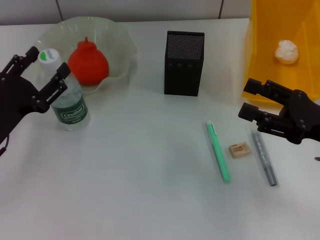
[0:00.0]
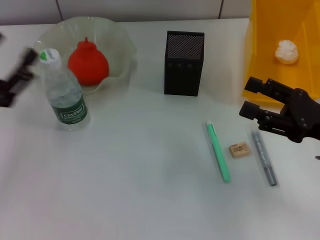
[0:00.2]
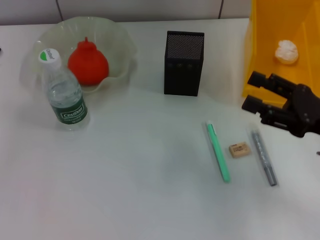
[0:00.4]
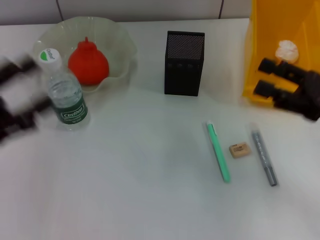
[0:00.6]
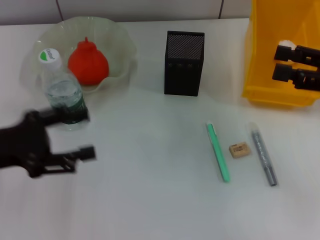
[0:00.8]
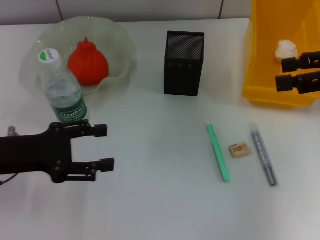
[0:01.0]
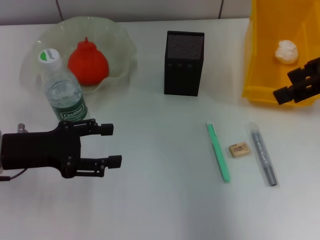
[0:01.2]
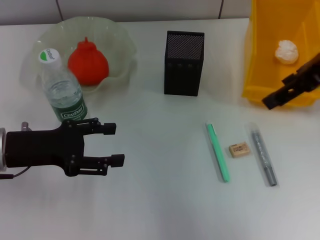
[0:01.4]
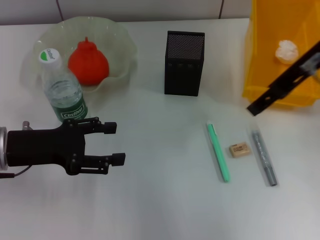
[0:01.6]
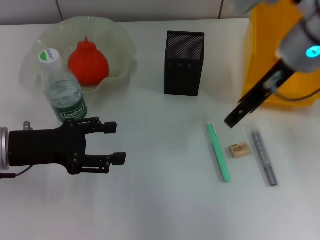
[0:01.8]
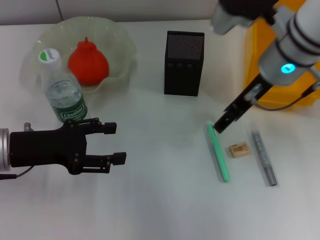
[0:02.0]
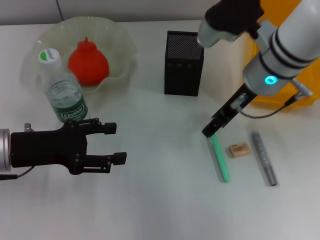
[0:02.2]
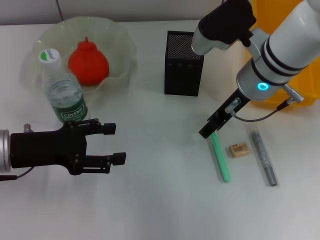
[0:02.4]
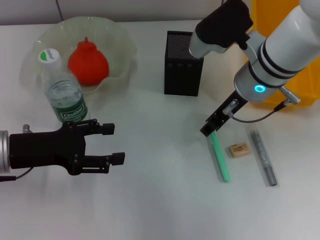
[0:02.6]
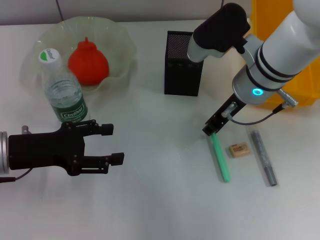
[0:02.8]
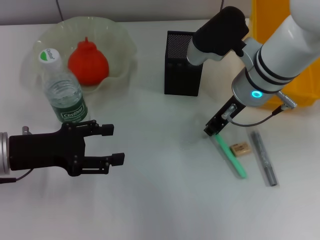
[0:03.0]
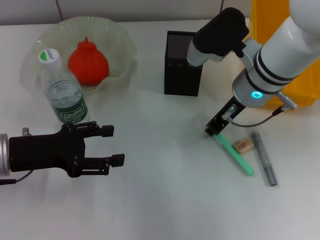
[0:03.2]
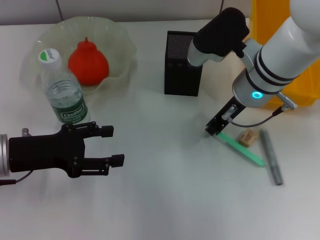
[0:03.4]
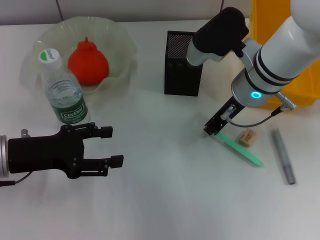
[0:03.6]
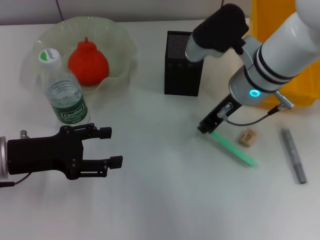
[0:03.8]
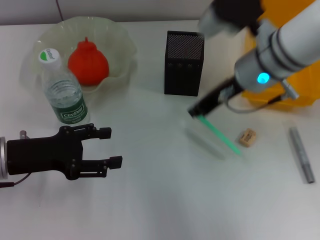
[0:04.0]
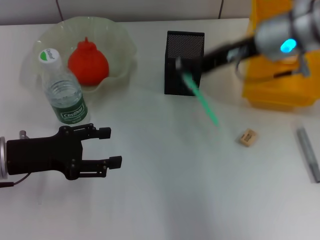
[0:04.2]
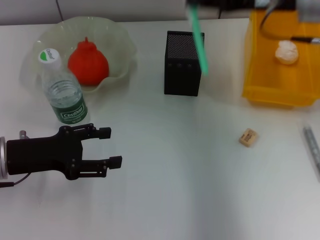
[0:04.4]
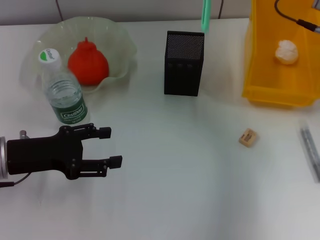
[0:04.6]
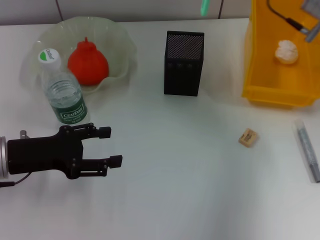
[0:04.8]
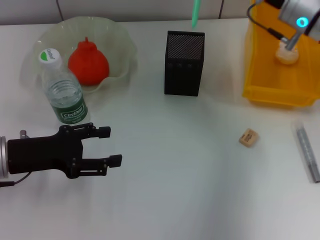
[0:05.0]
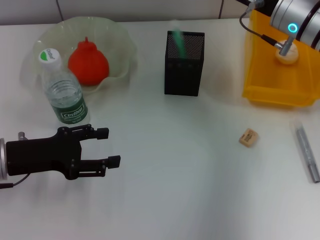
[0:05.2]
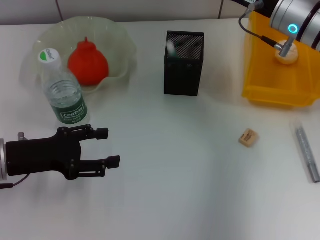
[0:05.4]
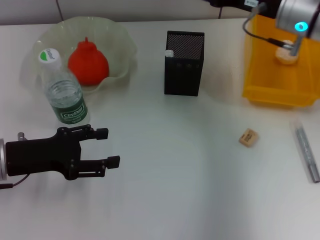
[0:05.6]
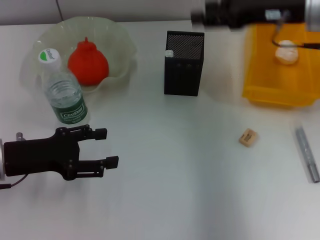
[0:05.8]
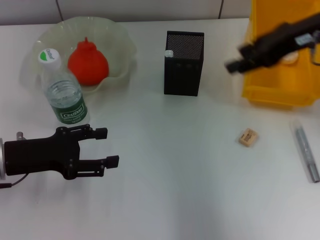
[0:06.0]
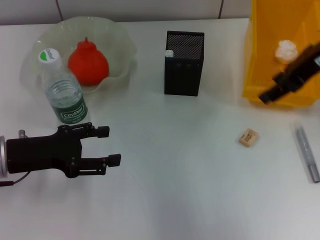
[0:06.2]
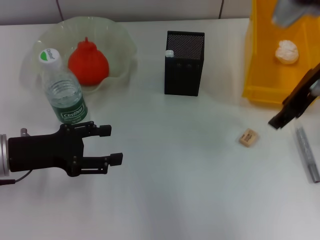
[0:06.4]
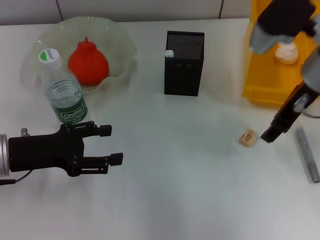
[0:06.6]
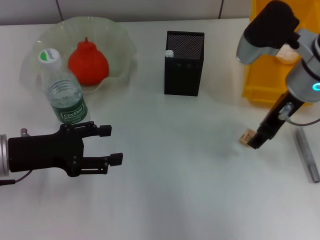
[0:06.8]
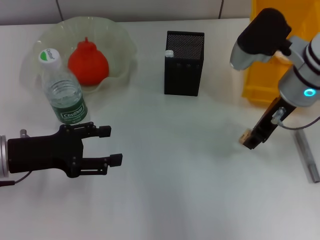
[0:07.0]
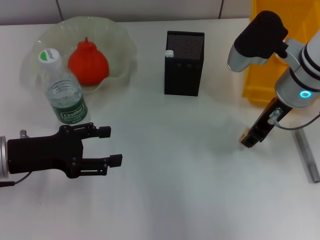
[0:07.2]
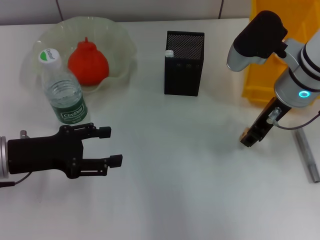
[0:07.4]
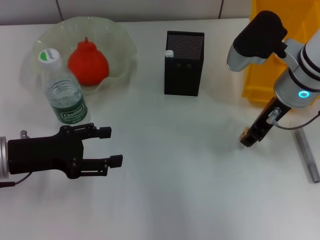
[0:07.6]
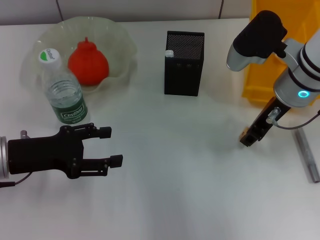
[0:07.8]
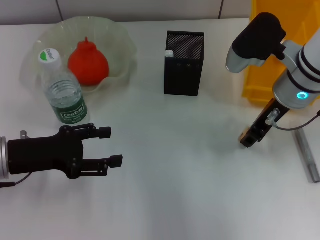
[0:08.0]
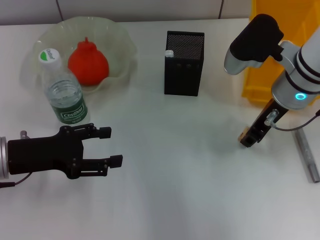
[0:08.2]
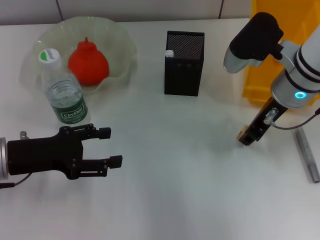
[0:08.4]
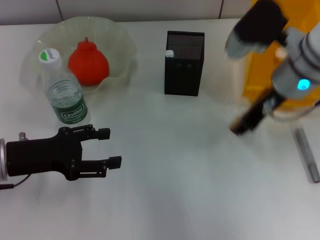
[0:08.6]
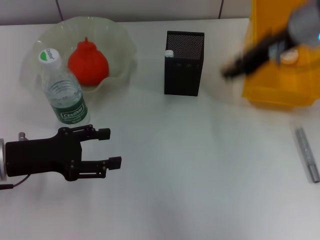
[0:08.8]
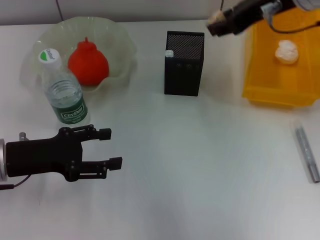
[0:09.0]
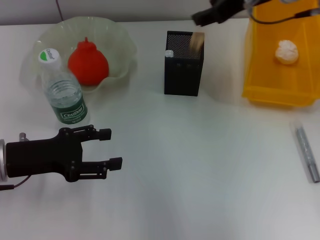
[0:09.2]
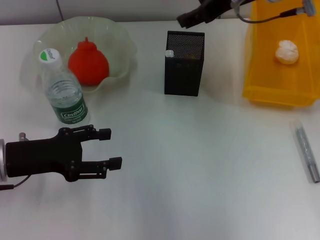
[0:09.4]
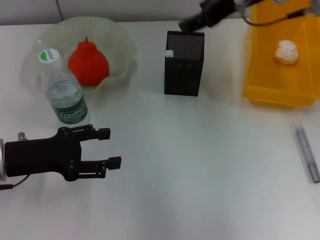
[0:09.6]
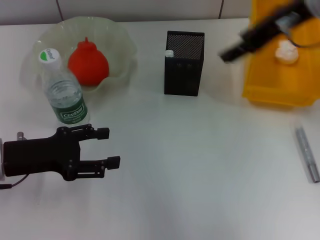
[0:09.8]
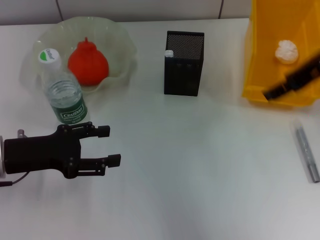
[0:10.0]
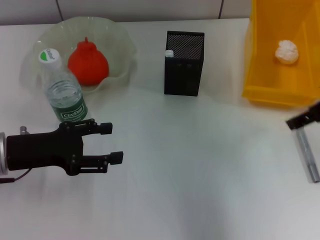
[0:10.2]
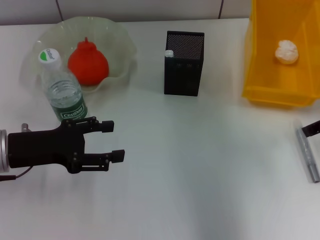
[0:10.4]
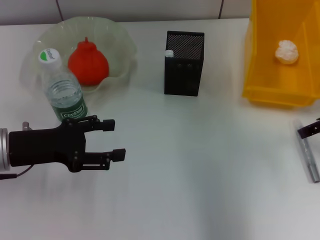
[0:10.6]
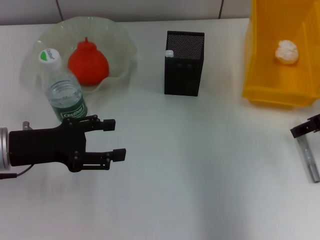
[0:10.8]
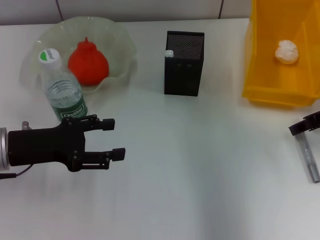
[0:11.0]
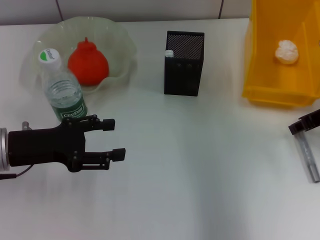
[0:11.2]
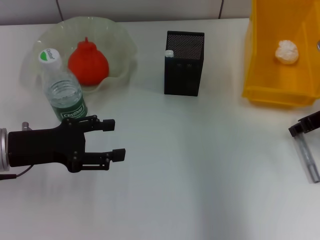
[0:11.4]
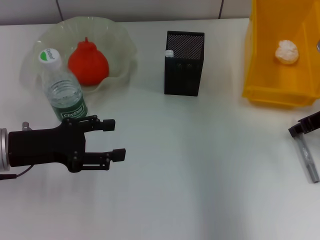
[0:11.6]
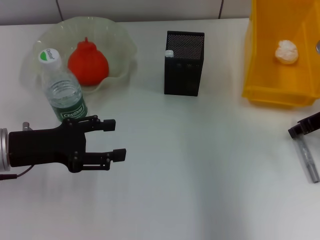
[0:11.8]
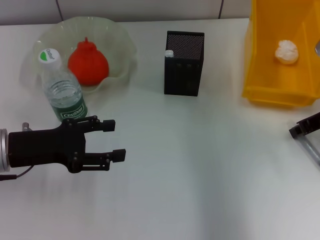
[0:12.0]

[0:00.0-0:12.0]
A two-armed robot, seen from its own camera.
Step, 0:00.0 to 0:03.4: Grab the blue utility knife with the right hand.
Step, 0:03.6 to 0:05.4: Place the blue utility knife into the pen holder with the right hand.
Step, 0:05.8 to 0:08.0: Grab the eraser with the right hand.
Step, 0:08.2 to 0:09.2: Put the eraser into the pen holder with the right hand.
0:00.0 to 0:01.6: The right gripper is displaced upward, forward and to the left by approximately 20 cm. Meanwhile the left gripper opens.
0:01.6 to 0:03.0: The right gripper is displaced downward and to the left by roughly 15 cm, and closes.
0:03.0 to 0:04.4: The right gripper heads upward and to the right, covering roughly 10 cm.
0:04.4 to 0:06.0: The right gripper reaches some 5 cm downward, then returns, and opens.
0:06.0 to 0:07.6: The right gripper is displaced downward and to the left by roughly 10 cm.
0:07.6 to 0:09.0: The right gripper heads upward, covering some 10 cm.
0:09.0 to 0:10.4: The right gripper goes some 15 cm to the right, downward and backward, and opens its fingers.
0:10.4 to 0:12.0: The right gripper is displaced downward by approximately 5 cm, and closes its fingers.

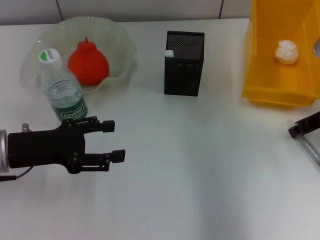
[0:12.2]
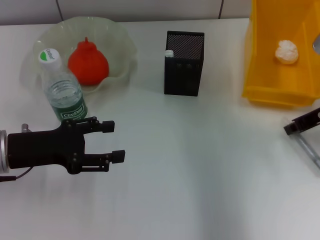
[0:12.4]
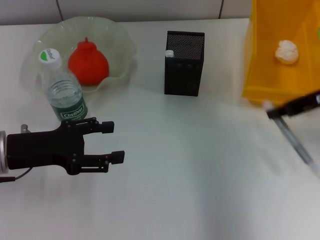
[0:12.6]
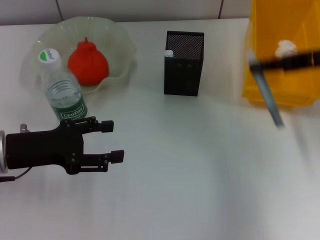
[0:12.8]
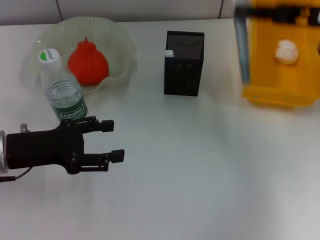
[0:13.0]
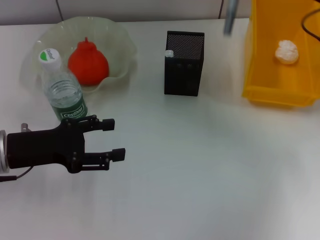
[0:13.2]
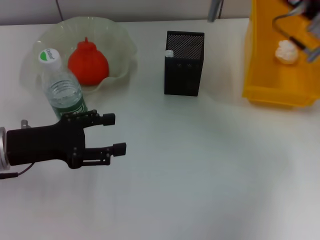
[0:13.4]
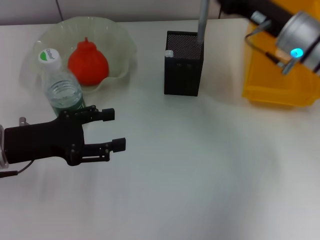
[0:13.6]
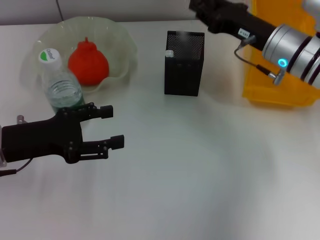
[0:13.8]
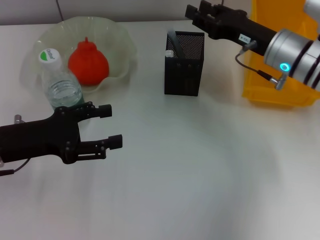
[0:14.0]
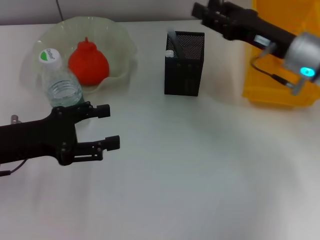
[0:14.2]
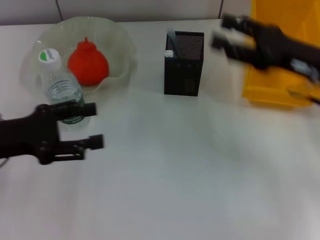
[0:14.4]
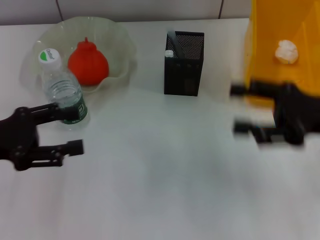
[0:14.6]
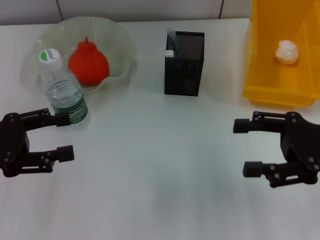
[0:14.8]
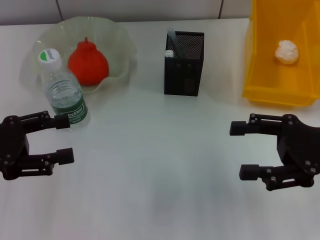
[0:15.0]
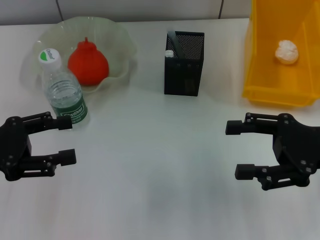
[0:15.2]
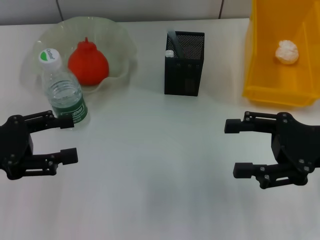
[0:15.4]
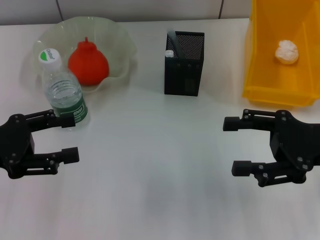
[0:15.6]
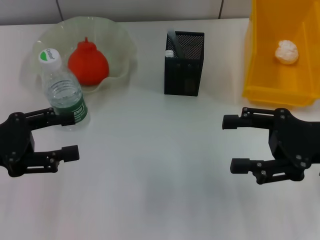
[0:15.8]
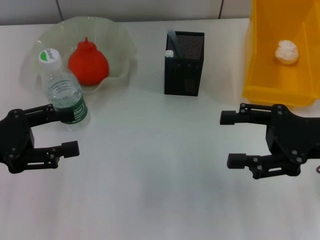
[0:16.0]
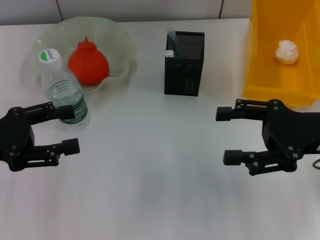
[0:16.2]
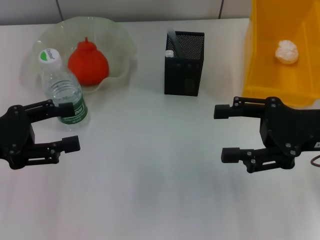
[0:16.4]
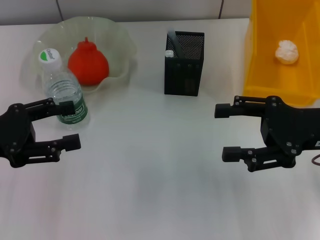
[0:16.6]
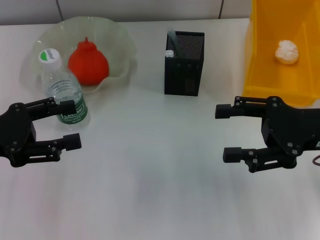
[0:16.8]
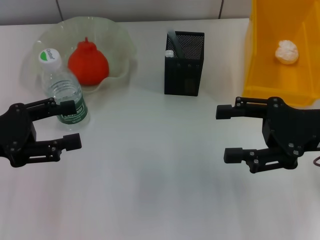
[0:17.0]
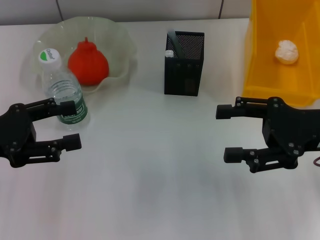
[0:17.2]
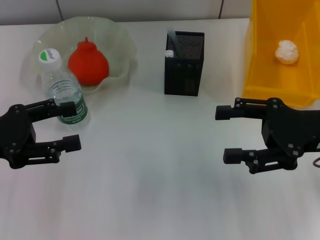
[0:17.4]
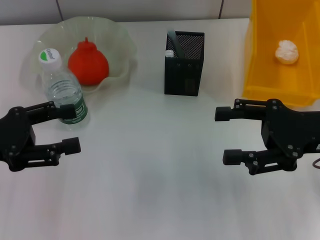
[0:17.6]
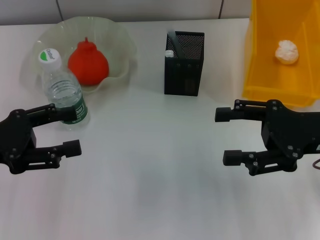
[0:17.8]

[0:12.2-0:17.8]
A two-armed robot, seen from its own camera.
Step, 0:12.2 to 0:14.2: Place the gray glue into the pen holder with the right hand.
0:12.2 to 0:13.6: The right gripper goes about 10 cm to the left, and goes upward and returns, some 10 cm each way.
0:13.6 to 0:15.0: The left gripper travels to the left by about 5 cm. The right gripper shifts approximately 15 cm backward and to the right, and opens.
0:15.0 to 0:16.4: There are only small adjustments of the grippers.
0:16.4 to 0:17.8: Neither gripper changes place.

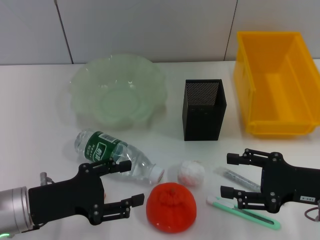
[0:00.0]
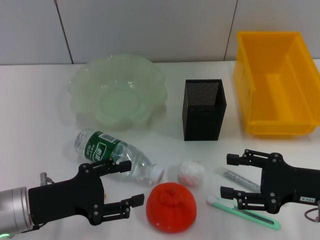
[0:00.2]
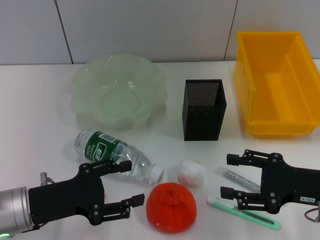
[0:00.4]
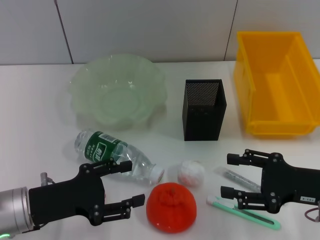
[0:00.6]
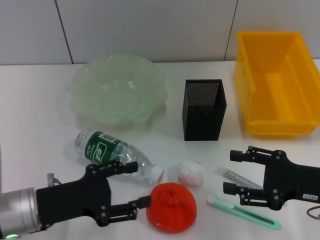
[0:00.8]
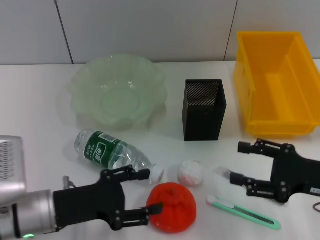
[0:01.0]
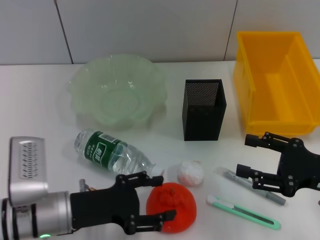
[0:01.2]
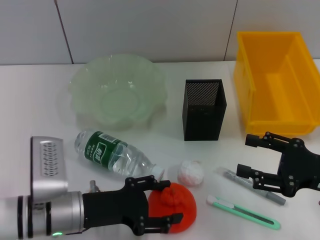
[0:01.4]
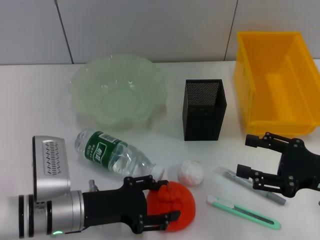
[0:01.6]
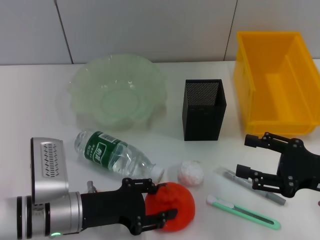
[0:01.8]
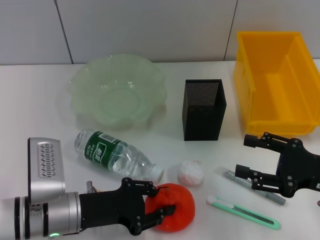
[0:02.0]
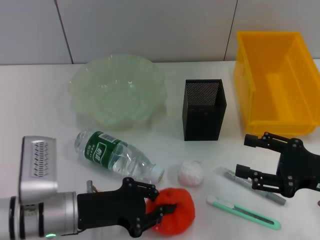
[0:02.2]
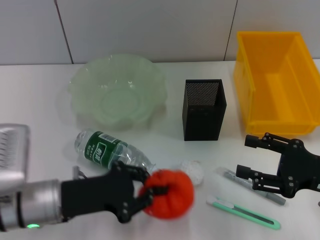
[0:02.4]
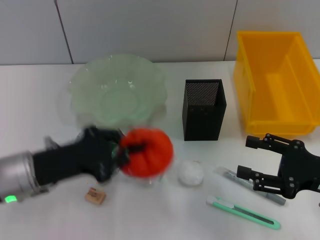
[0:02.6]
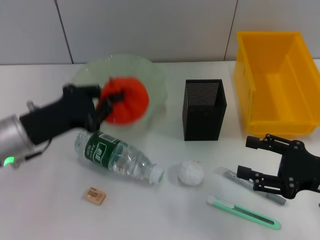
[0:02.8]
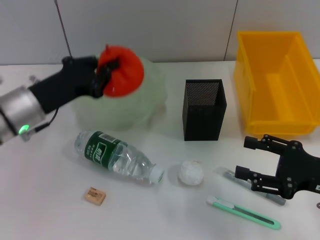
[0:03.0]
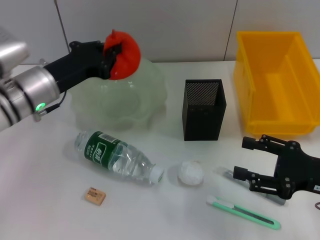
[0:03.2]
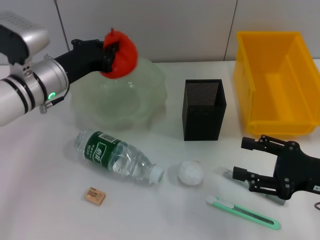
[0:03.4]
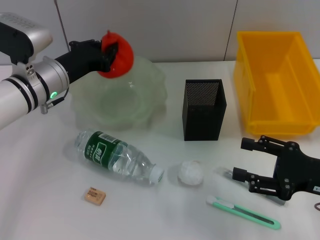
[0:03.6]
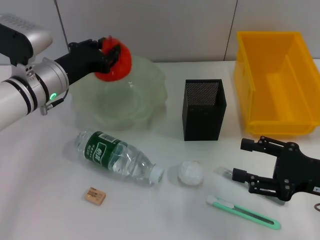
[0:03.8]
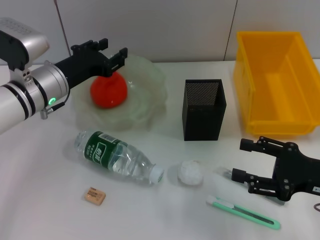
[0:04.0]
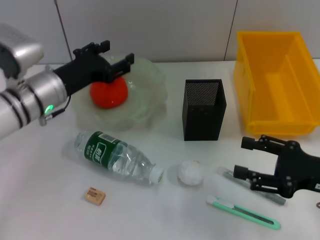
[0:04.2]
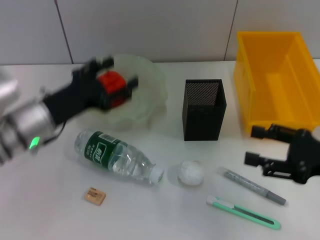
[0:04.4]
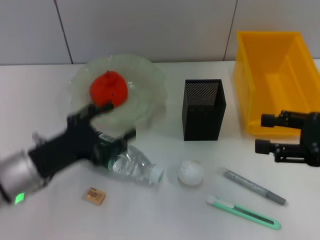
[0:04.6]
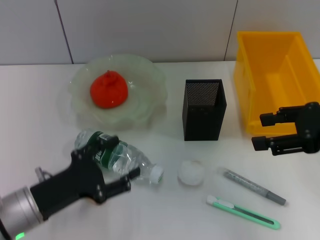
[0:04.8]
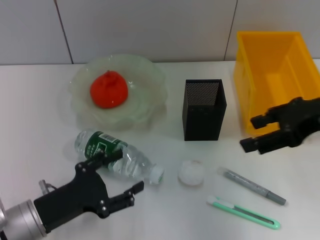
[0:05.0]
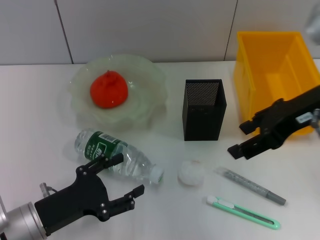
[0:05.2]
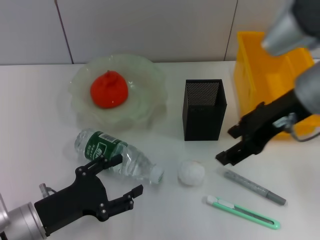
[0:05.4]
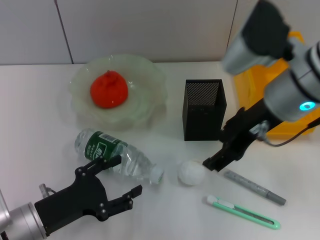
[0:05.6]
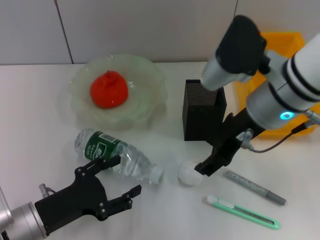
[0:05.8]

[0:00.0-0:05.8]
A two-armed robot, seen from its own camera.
Step, 0:00.0 to 0:02.0: Grab the orange with the left hand.
Step, 0:02.2 to 0:04.2: Place the orange into the fruit bowl with the left hand.
0:00.0 to 0:01.4: The left gripper shifts some 5 cm to the right.
0:01.4 to 0:02.8: The left gripper shifts approximately 10 cm upward and to the left, and closes its fingers.
0:02.8 to 0:04.4: The left gripper opens its fingers.
0:04.4 to 0:05.8: The right gripper goes about 20 cm to the left, upward and forward, while the left gripper heads backward and downward, covering about 15 cm.
